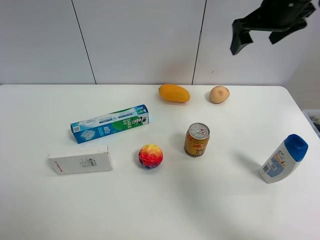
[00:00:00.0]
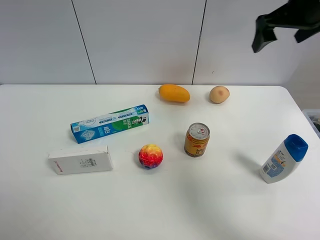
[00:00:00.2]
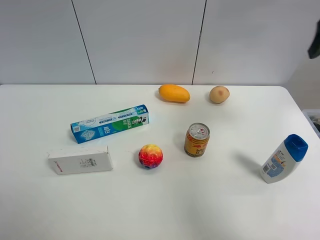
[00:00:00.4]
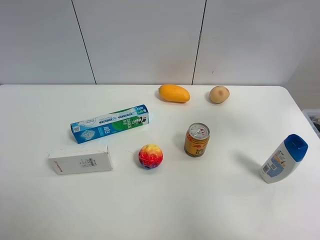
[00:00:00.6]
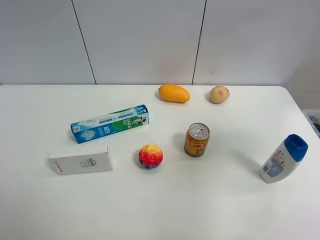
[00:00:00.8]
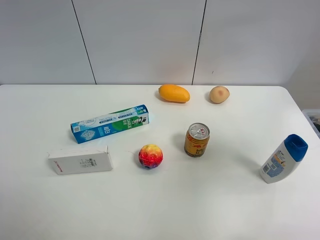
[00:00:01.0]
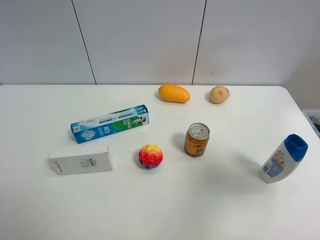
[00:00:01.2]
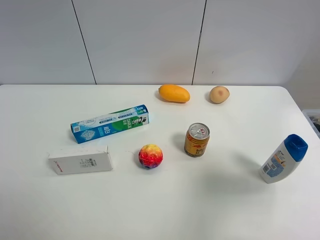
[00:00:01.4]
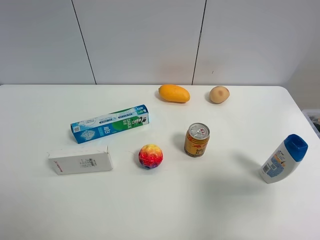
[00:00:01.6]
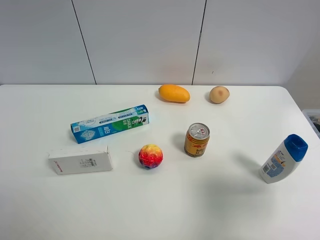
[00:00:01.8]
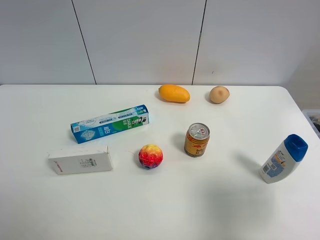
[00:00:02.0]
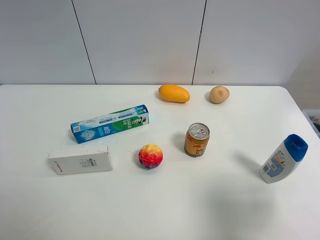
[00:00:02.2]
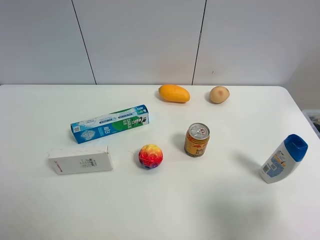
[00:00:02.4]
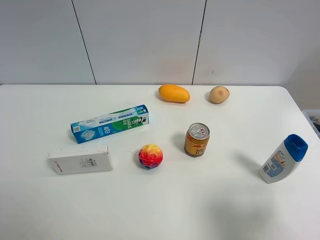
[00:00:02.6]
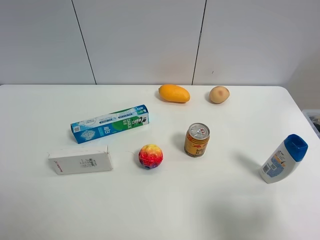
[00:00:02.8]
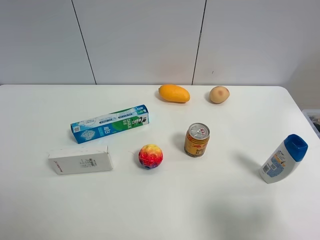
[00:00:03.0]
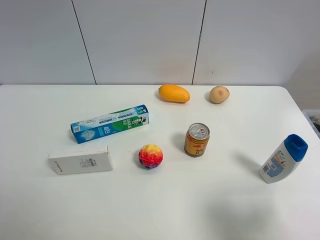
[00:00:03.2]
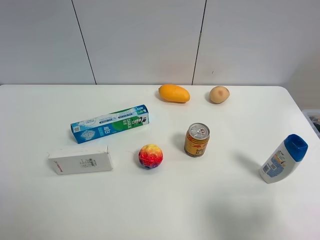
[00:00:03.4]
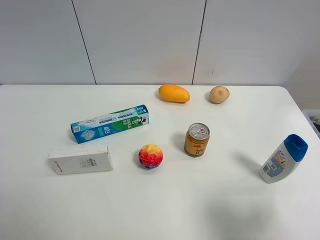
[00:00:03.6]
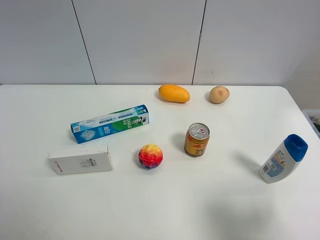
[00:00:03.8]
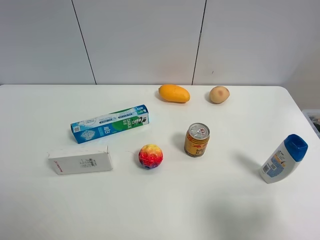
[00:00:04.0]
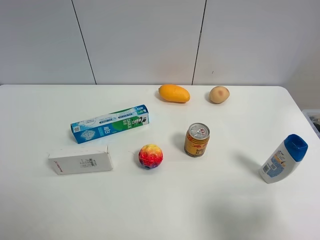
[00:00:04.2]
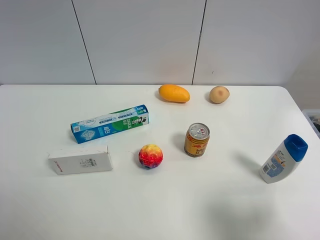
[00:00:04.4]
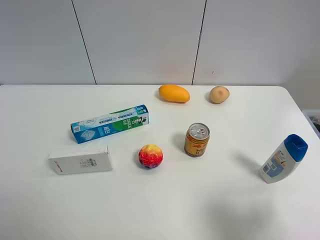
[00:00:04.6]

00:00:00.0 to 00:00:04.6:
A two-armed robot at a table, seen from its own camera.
Task of the whole recording: the gripper move the object.
00:00:00.0 to 00:00:01.6: The right gripper goes approximately 30 cm backward.
00:00:01.6 to 00:00:03.0: The right gripper shifts approximately 5 cm backward.
00:00:03.0 to 00:00:04.6: Both grippers stay put.
